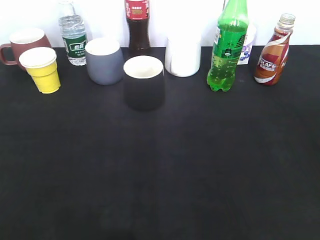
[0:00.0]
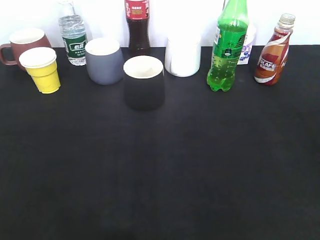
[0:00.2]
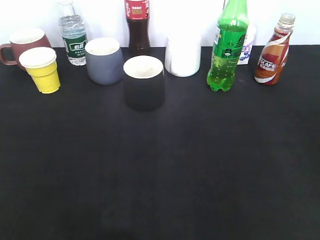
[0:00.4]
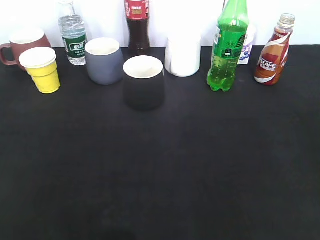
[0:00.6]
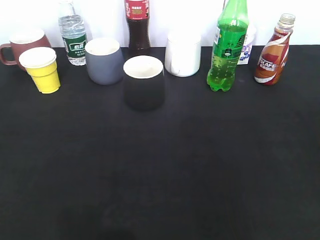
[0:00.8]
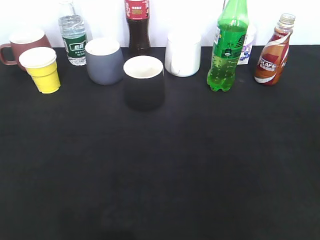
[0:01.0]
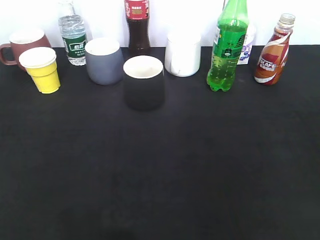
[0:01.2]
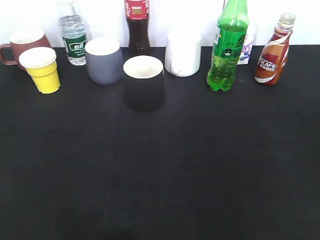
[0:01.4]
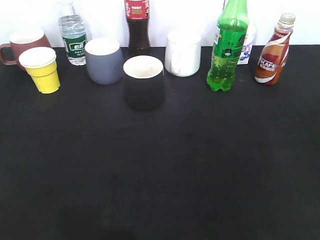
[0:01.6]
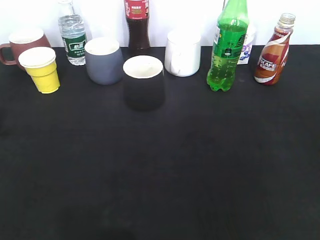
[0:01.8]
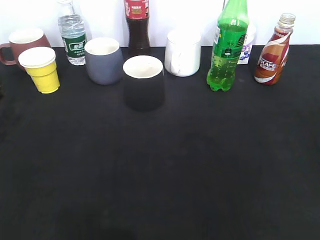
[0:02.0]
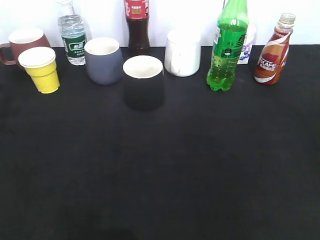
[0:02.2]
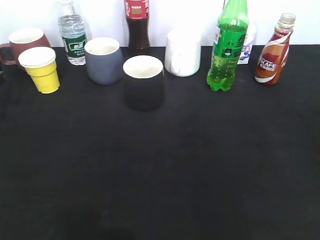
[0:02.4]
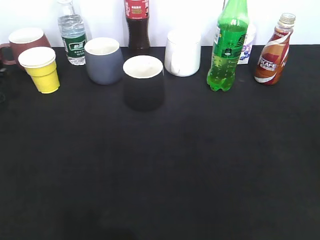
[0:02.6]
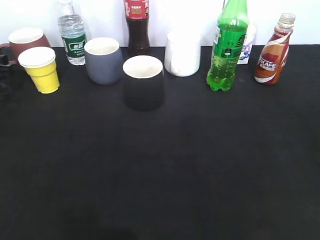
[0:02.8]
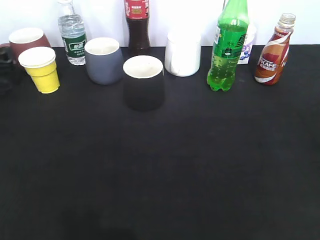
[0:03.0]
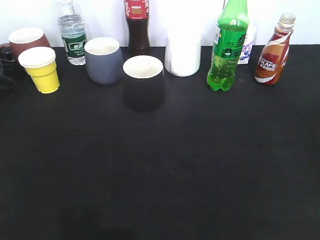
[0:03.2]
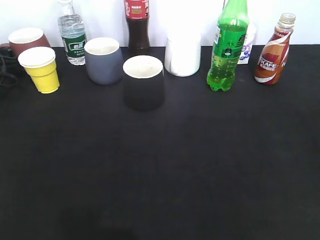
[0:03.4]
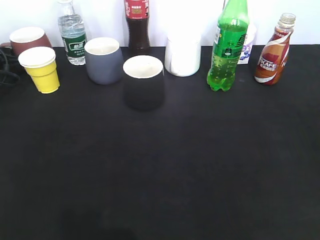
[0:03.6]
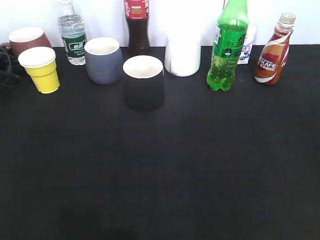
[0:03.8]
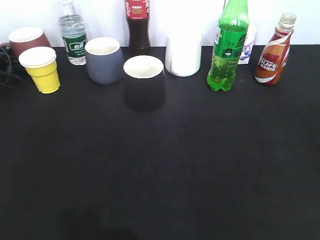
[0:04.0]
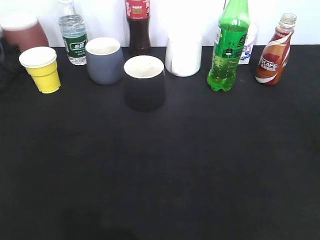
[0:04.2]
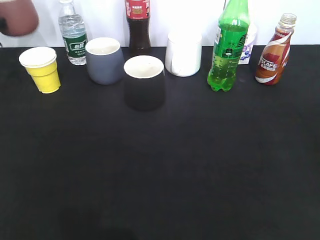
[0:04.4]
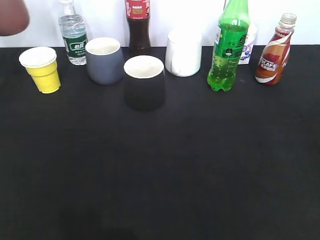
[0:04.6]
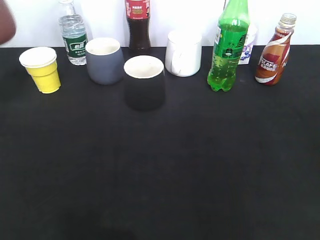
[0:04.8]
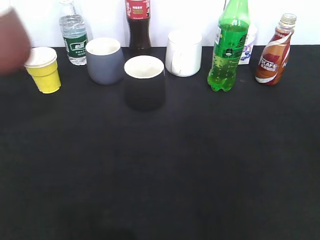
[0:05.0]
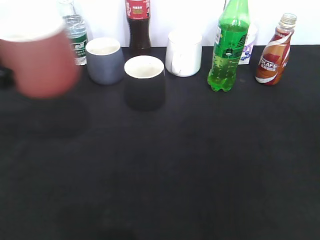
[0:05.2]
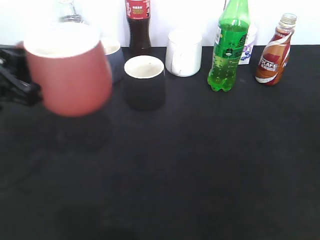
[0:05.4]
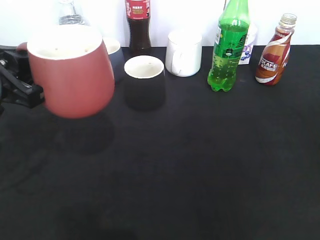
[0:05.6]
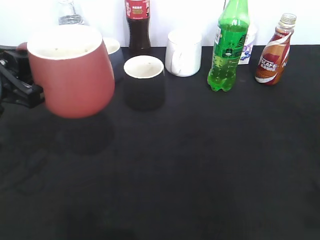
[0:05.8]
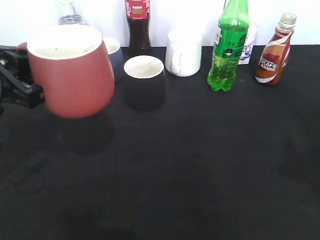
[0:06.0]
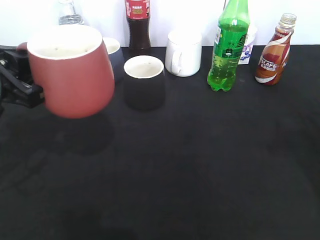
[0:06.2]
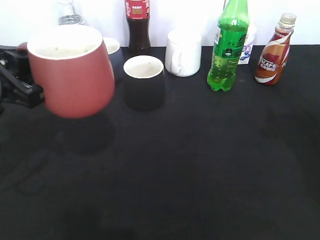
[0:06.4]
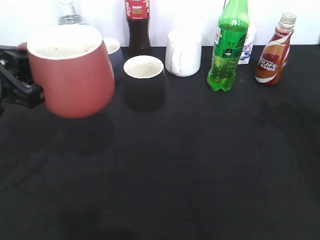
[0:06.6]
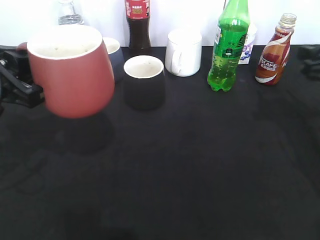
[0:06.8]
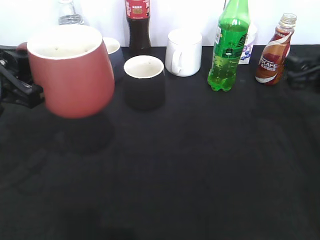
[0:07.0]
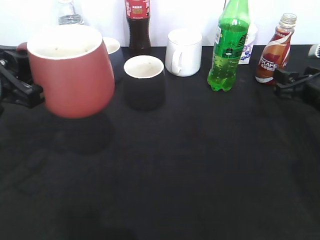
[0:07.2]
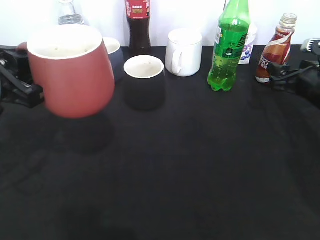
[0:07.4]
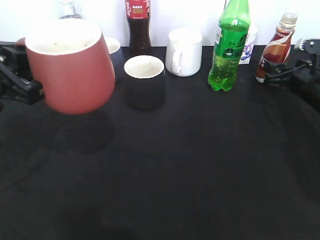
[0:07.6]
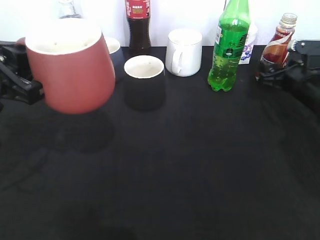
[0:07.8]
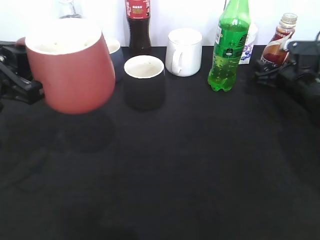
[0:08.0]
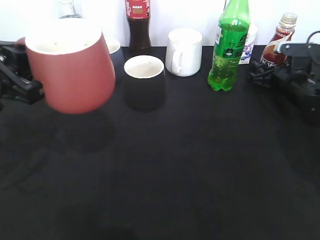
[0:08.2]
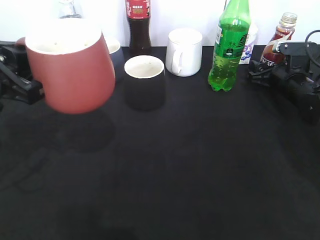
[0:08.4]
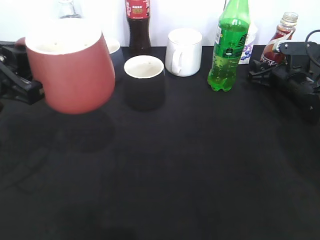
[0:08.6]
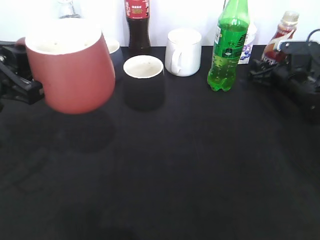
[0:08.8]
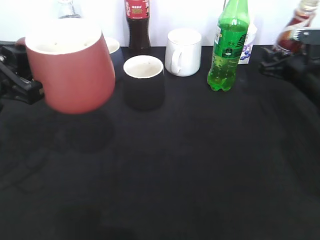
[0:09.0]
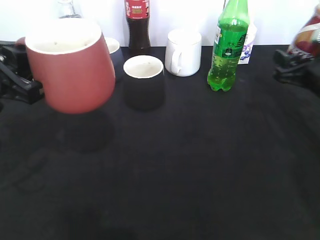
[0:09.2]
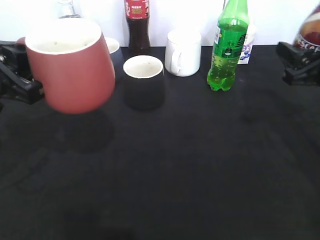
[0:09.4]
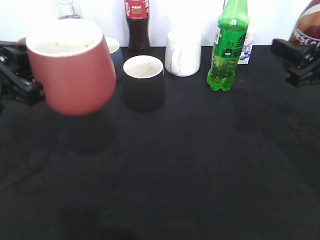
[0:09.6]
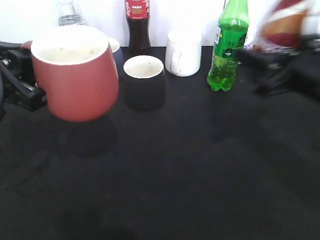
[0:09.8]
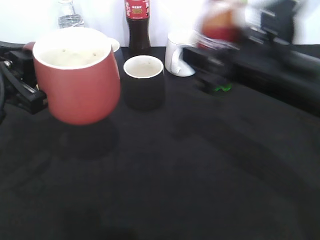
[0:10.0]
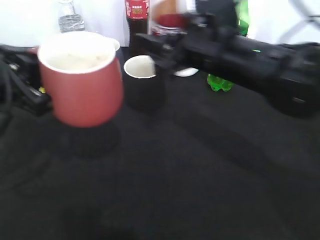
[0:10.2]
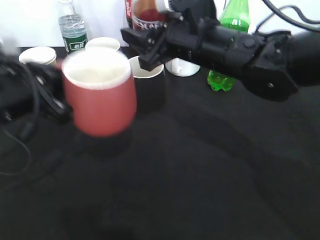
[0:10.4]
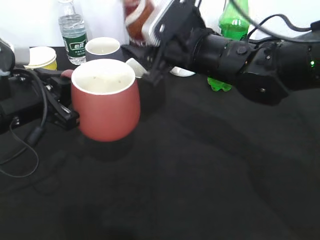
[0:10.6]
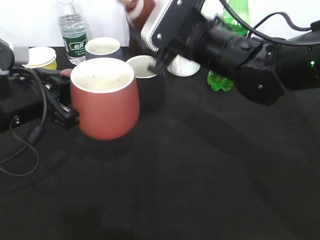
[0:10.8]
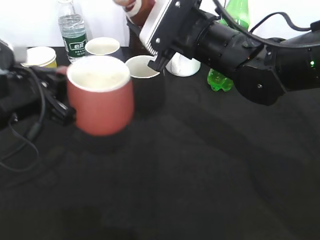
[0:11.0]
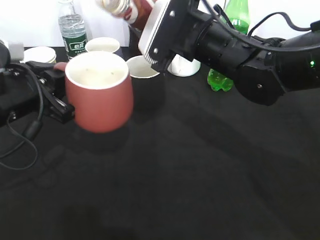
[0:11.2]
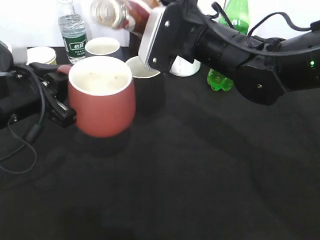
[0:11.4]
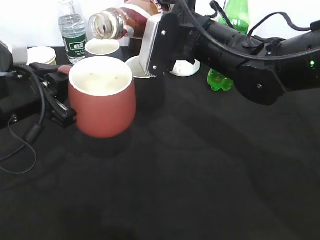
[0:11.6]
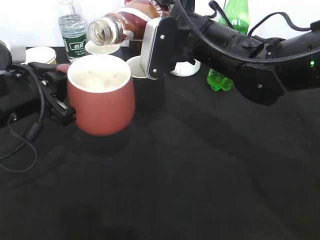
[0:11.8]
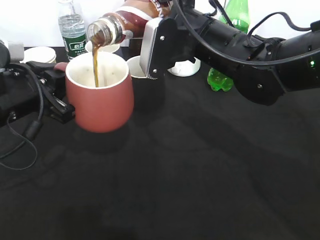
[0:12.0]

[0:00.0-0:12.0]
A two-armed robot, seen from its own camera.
Step, 0:04.0 to 0:06.4: Lift the red cup with left gripper.
Step, 0:06.6 to 0:08.4: Grasp the bottle with coffee with right gripper.
0:01.6 to 0:03.0: The left gripper heads forward and downward, covering about 25 cm.
0:03.0 to 0:04.4: The left gripper is displaced upward by roughly 10 cm, and closes up.
0:04.4 to 0:06.0: The left gripper is displaced backward and to the right by roughly 30 cm.
0:06.0 to 0:07.6: The right gripper travels forward and downward by some 30 cm, and opens up.
0:07.6 to 0:09.0: The right gripper closes up.
0:09.0 to 0:10.4: The left gripper moves about 5 cm, while the right gripper shifts roughly 25 cm to the left and upward.

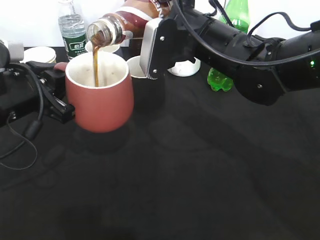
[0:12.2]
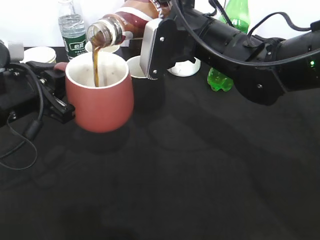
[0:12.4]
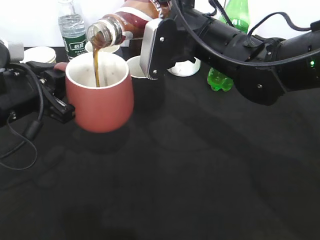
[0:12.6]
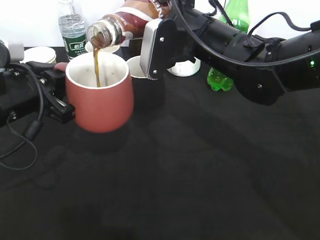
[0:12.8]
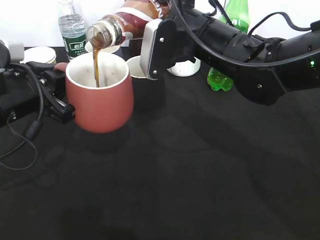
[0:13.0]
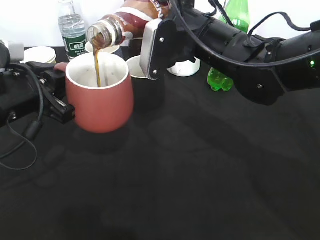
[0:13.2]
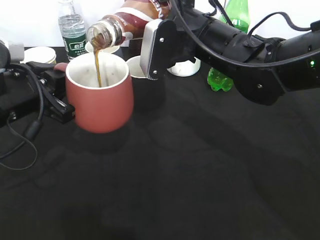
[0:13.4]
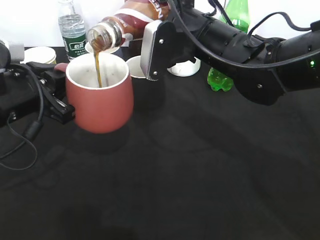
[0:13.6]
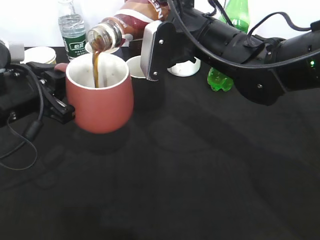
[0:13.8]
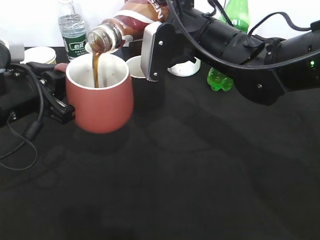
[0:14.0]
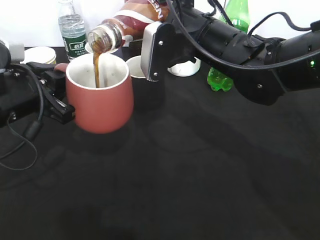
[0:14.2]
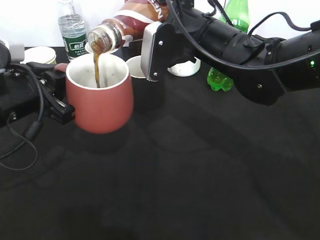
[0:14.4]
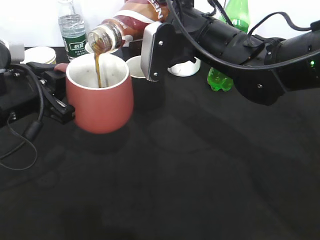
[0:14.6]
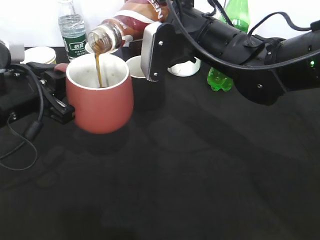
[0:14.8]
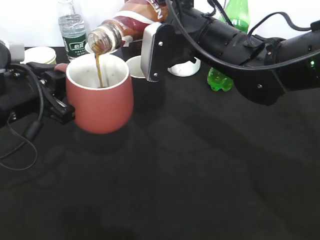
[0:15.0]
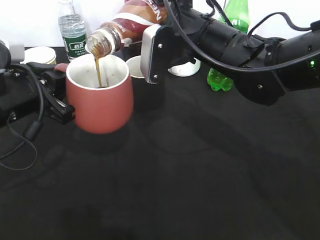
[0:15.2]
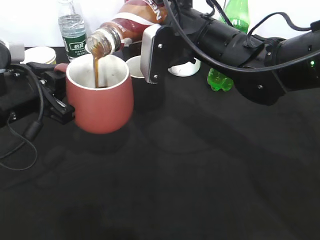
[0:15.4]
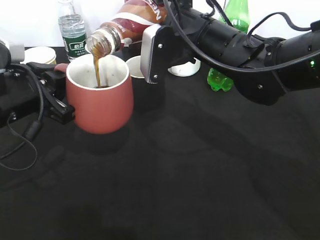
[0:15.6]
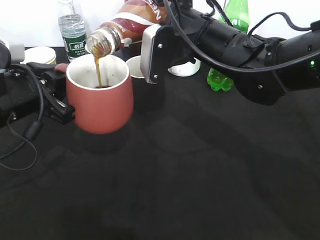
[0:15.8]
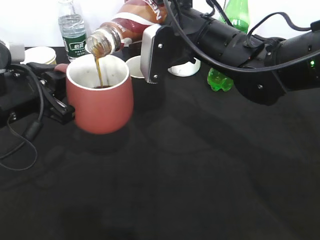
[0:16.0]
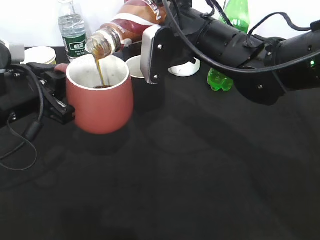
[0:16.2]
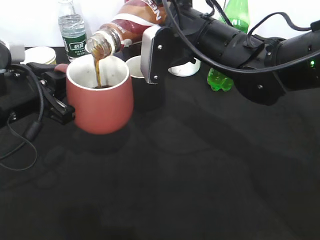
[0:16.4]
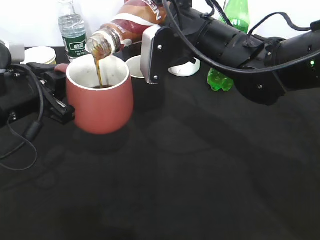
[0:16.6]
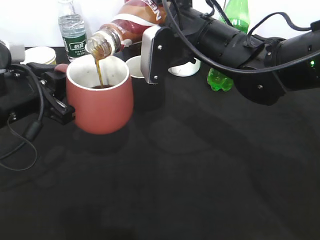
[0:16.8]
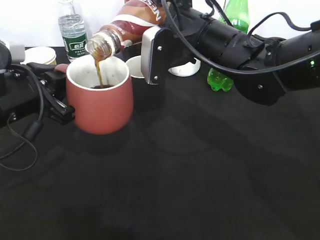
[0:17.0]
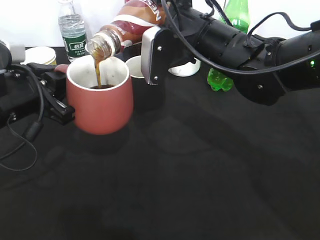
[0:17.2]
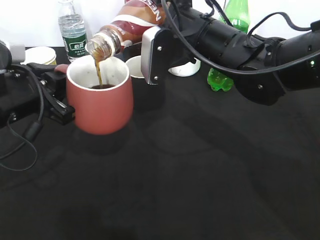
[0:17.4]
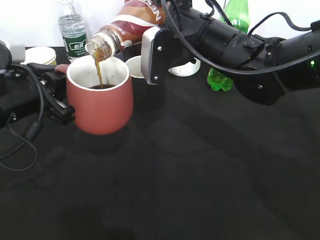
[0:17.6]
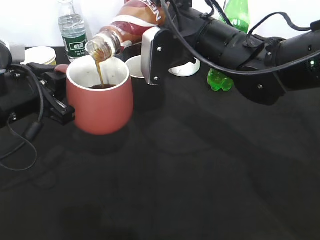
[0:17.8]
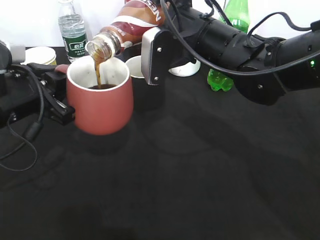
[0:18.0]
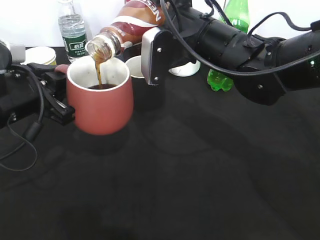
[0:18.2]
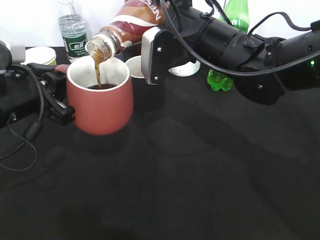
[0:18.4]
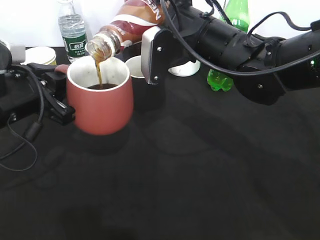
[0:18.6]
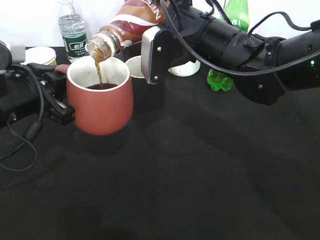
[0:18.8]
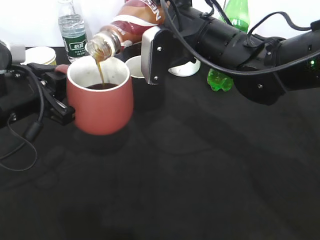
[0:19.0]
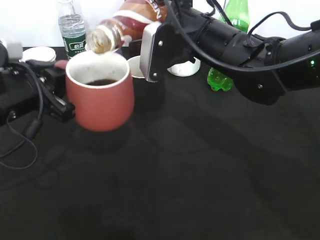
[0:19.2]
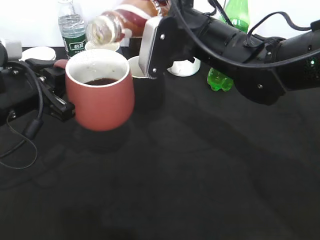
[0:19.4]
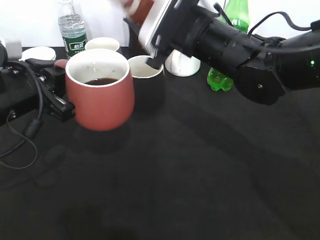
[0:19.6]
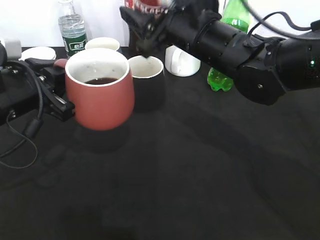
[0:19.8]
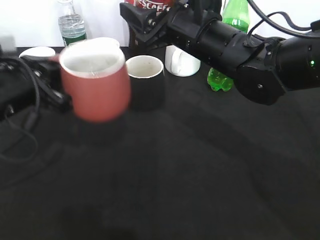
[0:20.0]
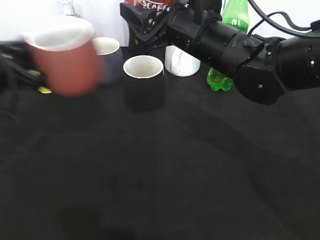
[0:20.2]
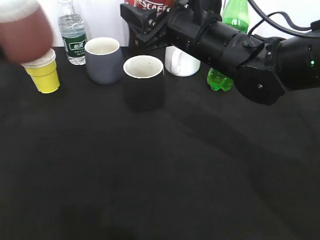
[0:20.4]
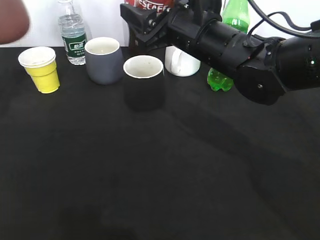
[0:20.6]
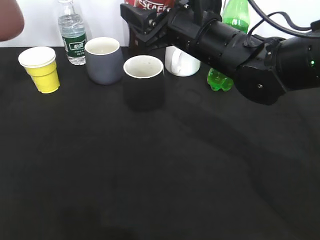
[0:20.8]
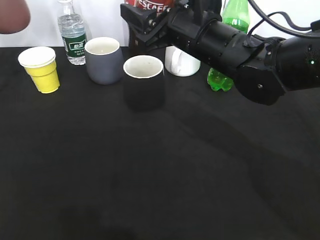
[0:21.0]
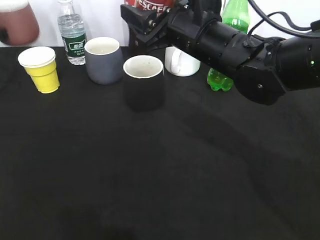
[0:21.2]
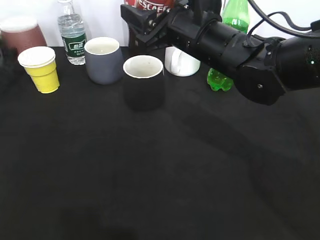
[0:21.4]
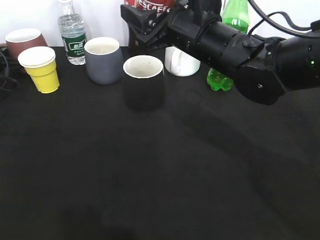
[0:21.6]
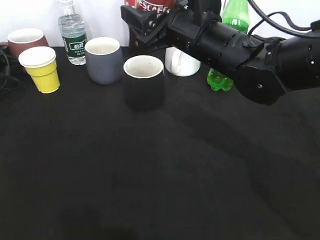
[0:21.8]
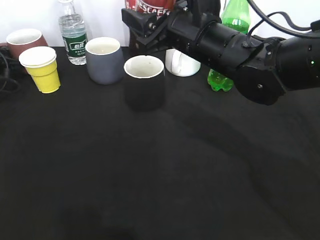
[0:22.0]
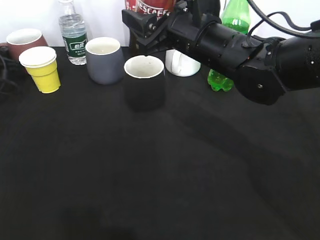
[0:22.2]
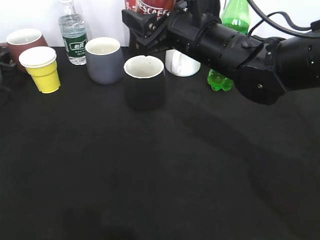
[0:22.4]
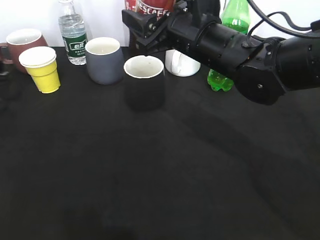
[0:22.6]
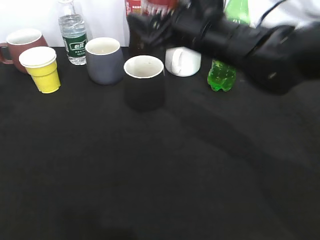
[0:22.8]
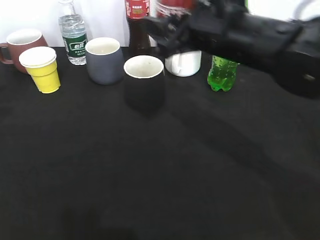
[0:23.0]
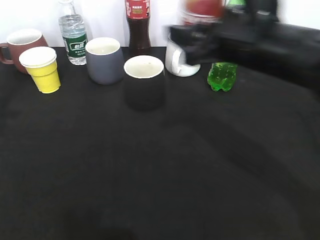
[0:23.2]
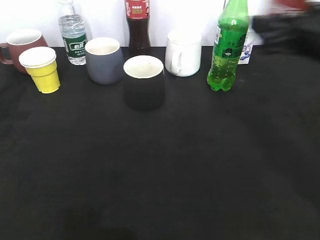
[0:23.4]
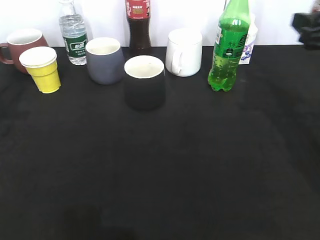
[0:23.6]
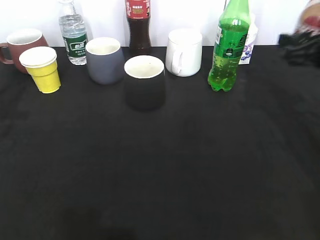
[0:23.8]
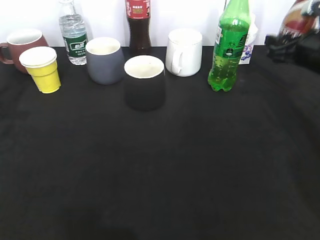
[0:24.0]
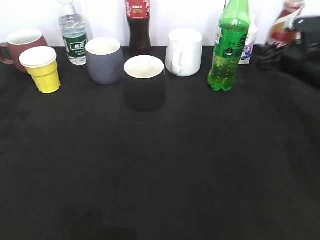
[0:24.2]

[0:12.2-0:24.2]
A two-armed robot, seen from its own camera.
Step, 0:12.2 to 0:19.6: Pour the coffee from bottle to cup with right gripper.
Step, 0:19.8 to 0:22.0: Place the red cup on the table with left gripper.
0:12.2 to 0:13.8: Neither gripper changes place.
0:13.8 to 0:16.6: Both grippers stay about where they are.
0:16.6 to 0:18.2: The two grippers keep their place.
0:19.8 to 0:21.2: The left gripper goes about 30 cm forward and to the left.
0:21.2 to 0:22.6: The left gripper heads backward, covering some 10 cm, and opens its fingers.
0:22.6 to 0:24.2: The left gripper shifts about 15 cm upward, backward and to the right, while the right gripper travels to the right and downward by about 25 cm.
